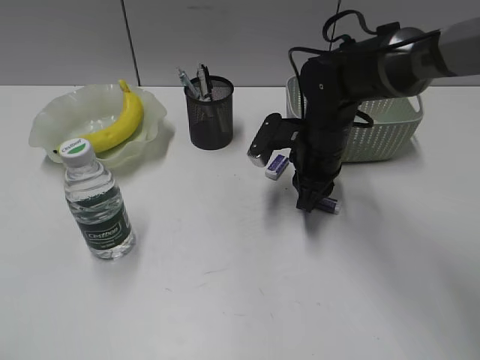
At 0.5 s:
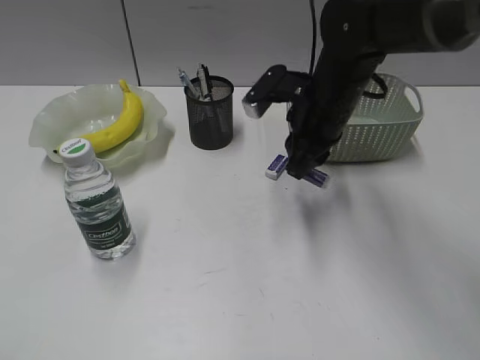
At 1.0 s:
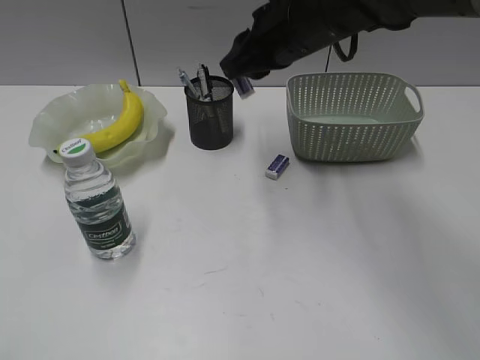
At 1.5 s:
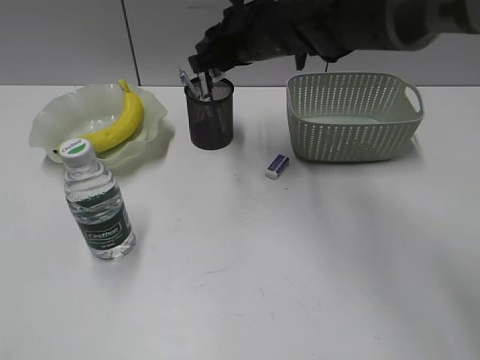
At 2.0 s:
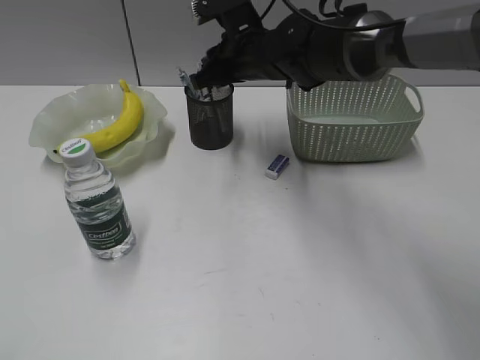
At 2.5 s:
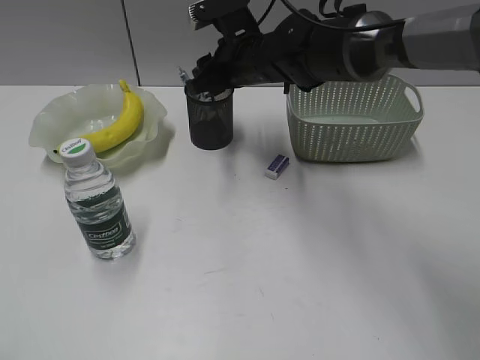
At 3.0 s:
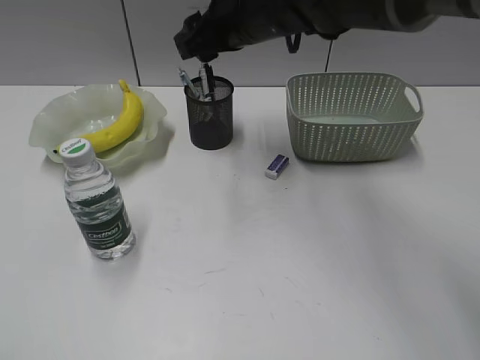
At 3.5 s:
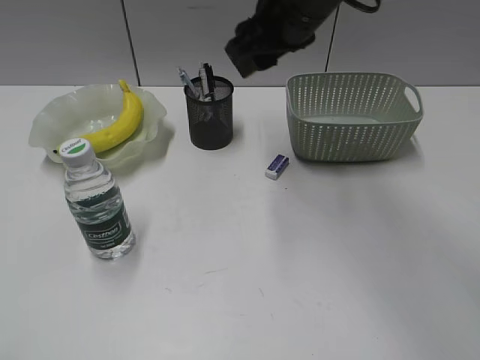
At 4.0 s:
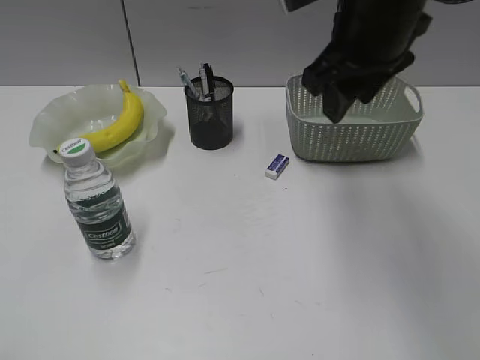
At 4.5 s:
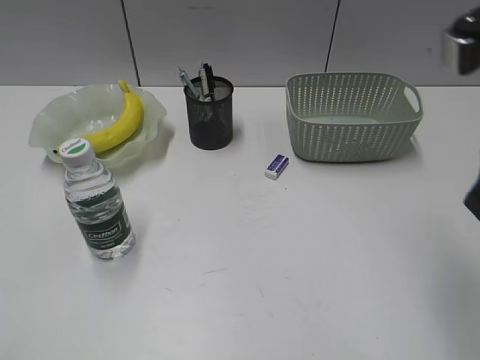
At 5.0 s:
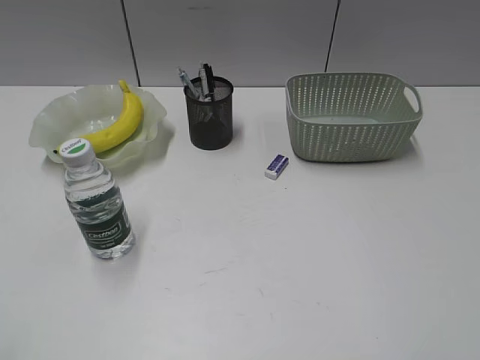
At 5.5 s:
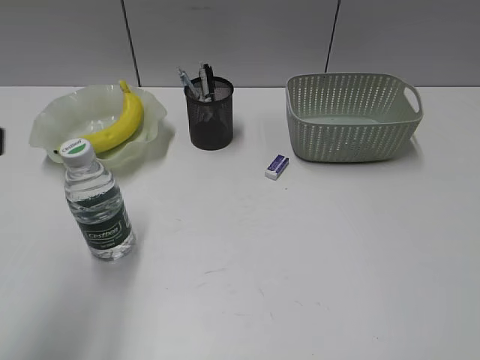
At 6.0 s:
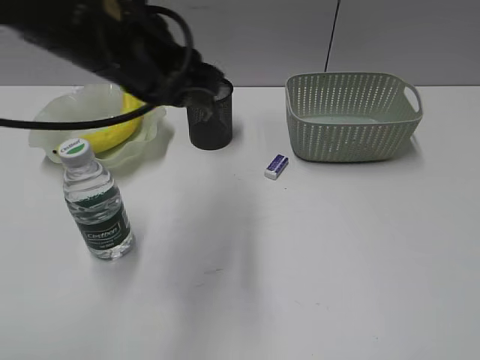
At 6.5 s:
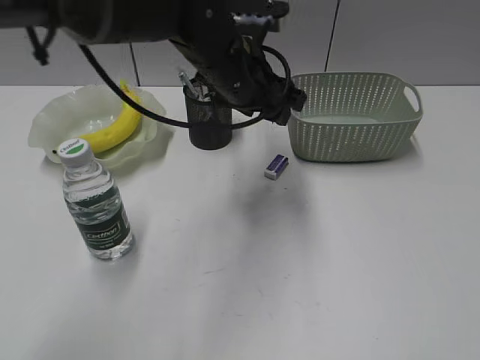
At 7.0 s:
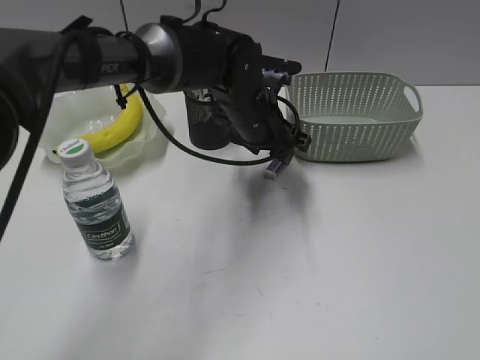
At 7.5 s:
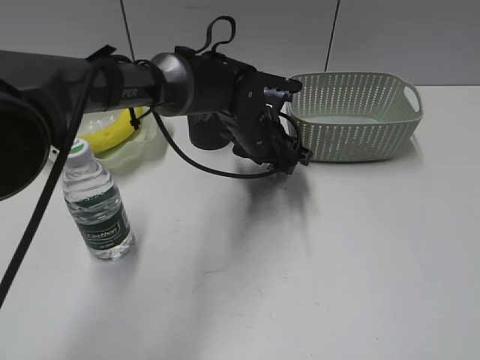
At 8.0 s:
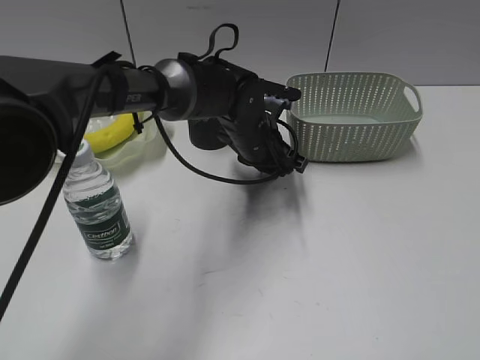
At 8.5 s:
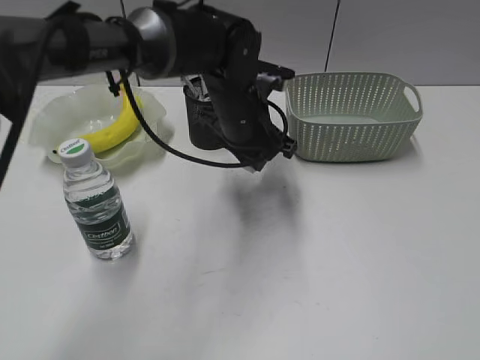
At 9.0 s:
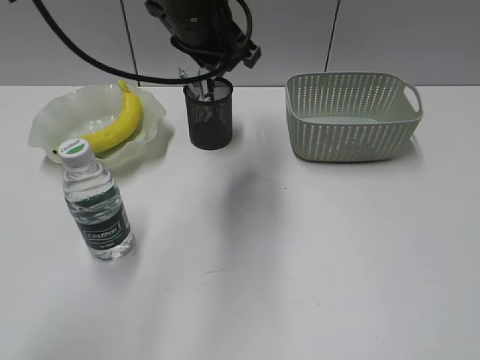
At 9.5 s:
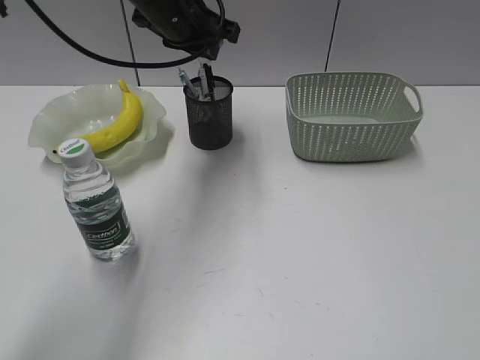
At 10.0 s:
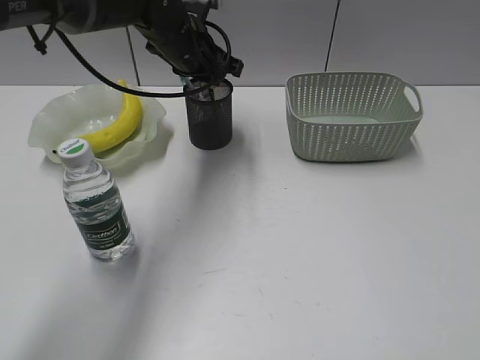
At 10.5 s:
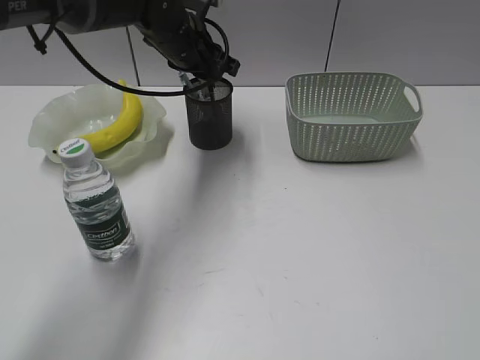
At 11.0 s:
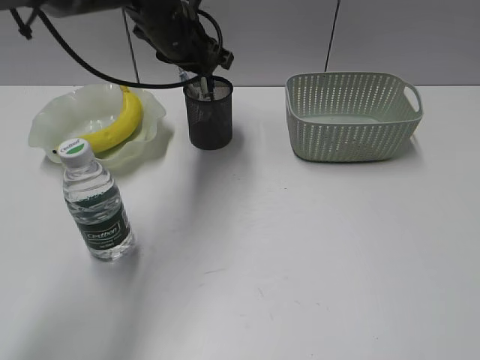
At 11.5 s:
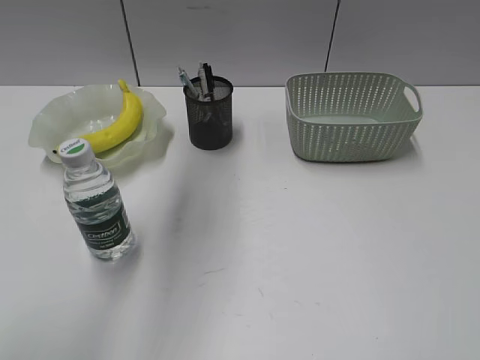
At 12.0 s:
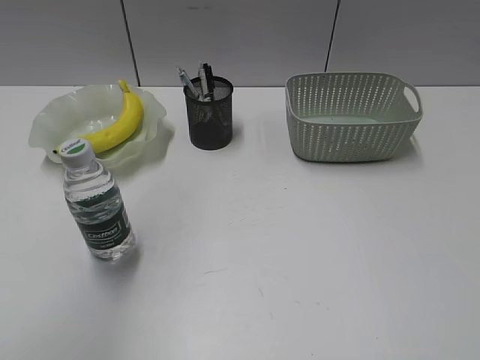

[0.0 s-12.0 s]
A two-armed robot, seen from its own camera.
Step, 0.5 to 2.5 s: Place the eraser in pen holder with right gripper.
Step, 3.0 to 8.0 s: Grasp the eraser with left gripper.
Step, 8.5 to 10.5 s: Place the eraser in pen holder with left gripper.
0.0 to 2.0 s: The right gripper goes approximately 15 cm to the left, upward and forward.
2.0 to 4.0 s: The right gripper shifts about 20 cm backward, upward and to the right, and opens.
4.0 to 6.0 s: The right gripper is displaced backward and to the right by about 40 cm, while the left gripper is displaced forward and to the right by approximately 35 cm.
6.0 to 8.0 s: The left gripper shifts some 25 cm downward, to the right and forward, and opens and closes again.
8.0 to 10.0 s: The left gripper goes some 15 cm upward, to the left and forward.
10.0 to 12.0 s: The left gripper shifts approximately 40 cm upward, backward and to the left.

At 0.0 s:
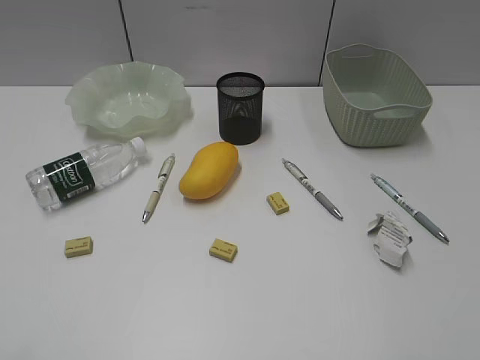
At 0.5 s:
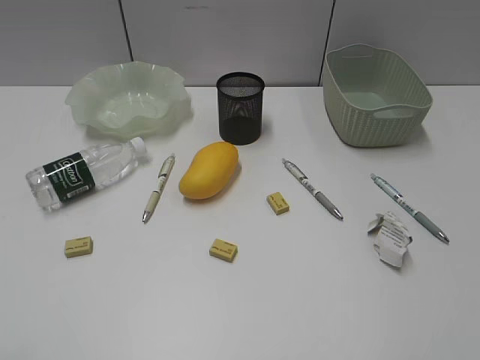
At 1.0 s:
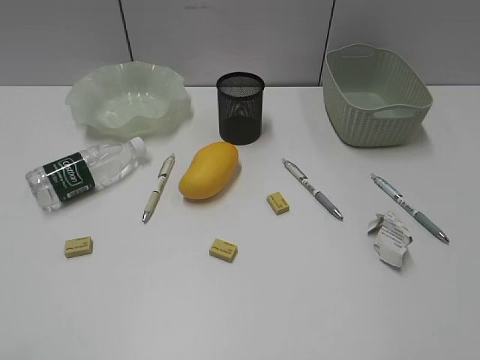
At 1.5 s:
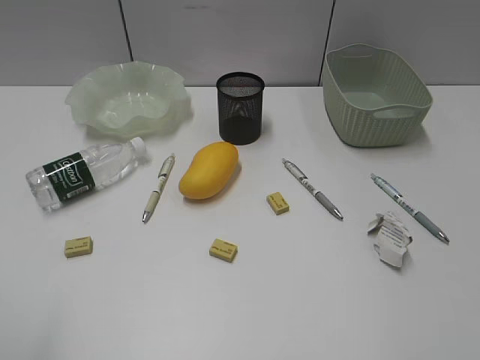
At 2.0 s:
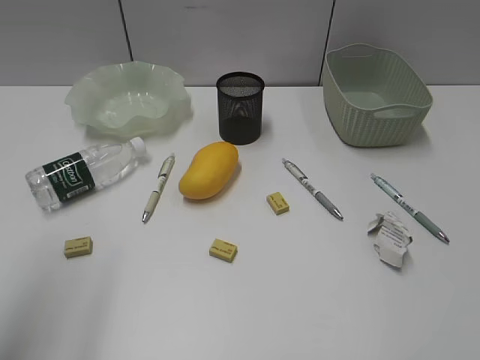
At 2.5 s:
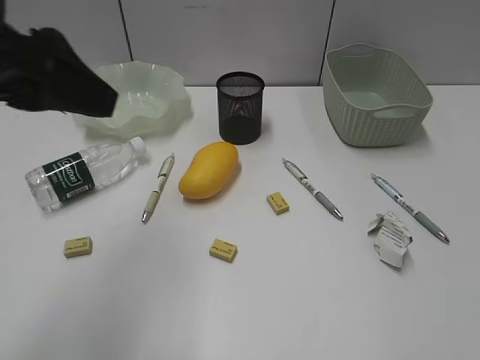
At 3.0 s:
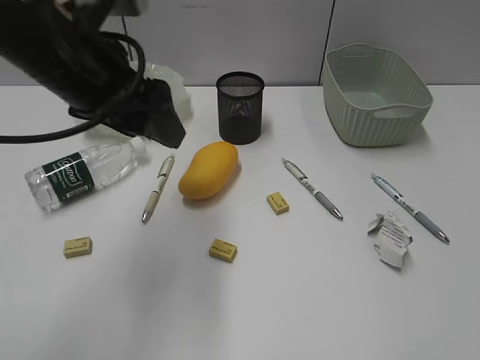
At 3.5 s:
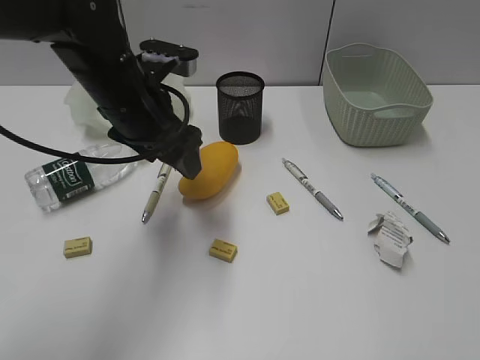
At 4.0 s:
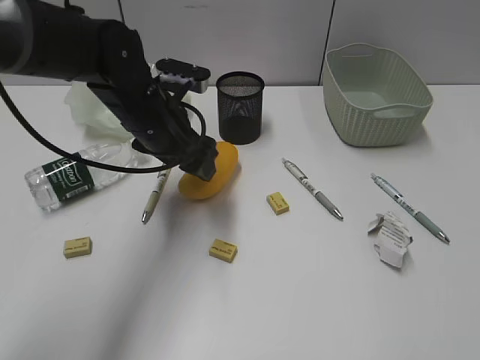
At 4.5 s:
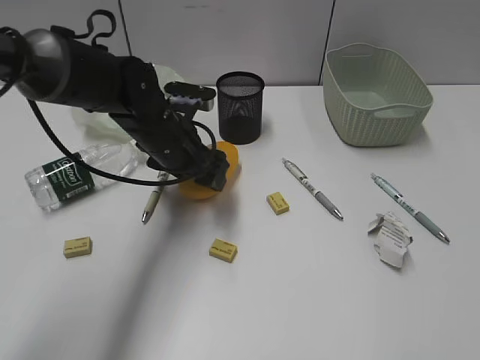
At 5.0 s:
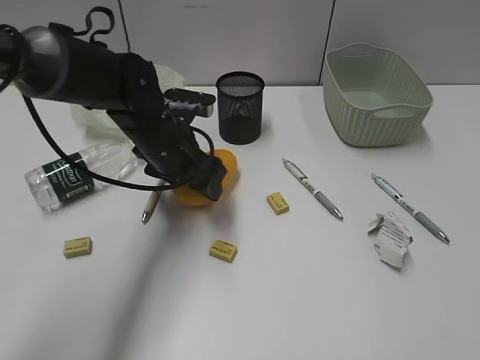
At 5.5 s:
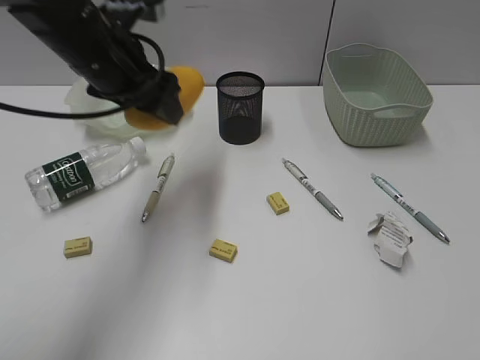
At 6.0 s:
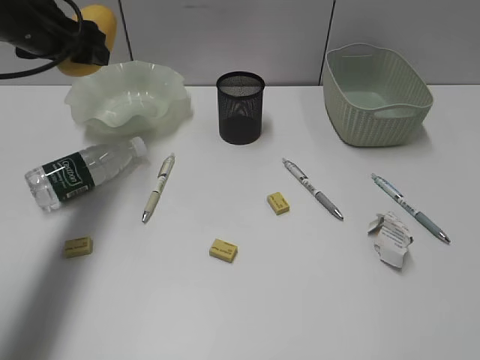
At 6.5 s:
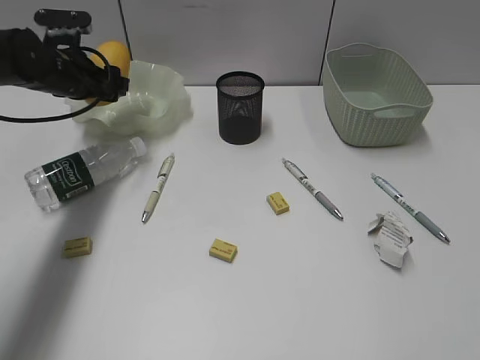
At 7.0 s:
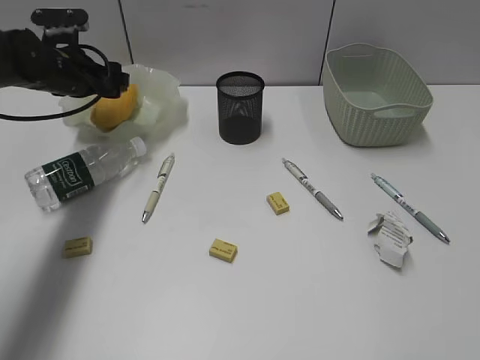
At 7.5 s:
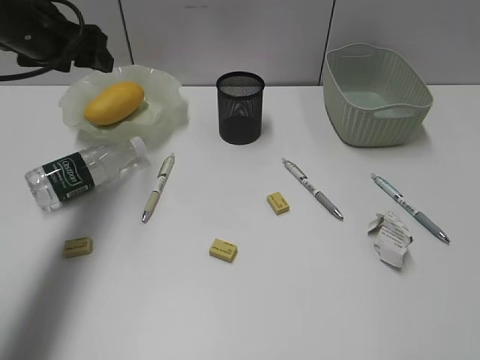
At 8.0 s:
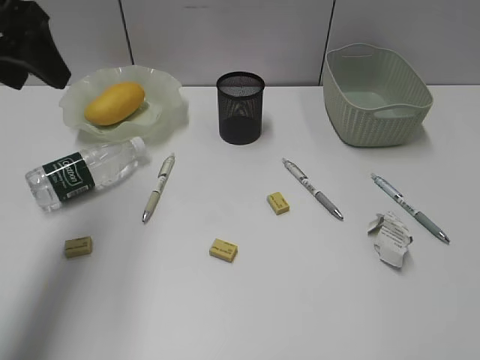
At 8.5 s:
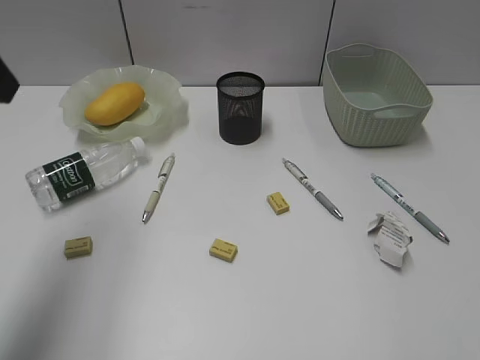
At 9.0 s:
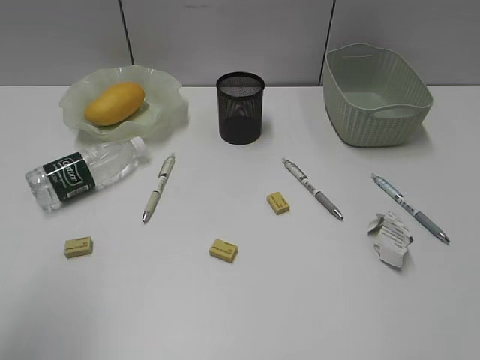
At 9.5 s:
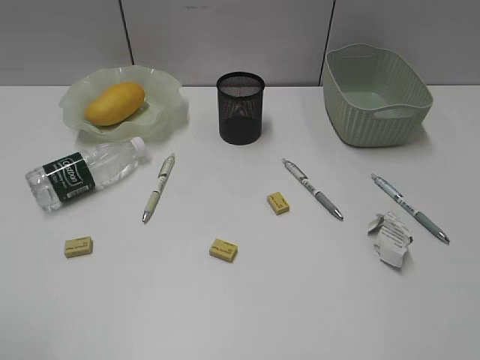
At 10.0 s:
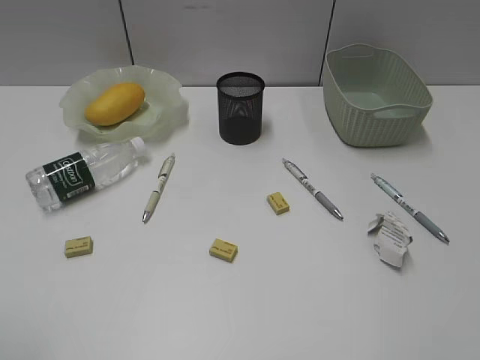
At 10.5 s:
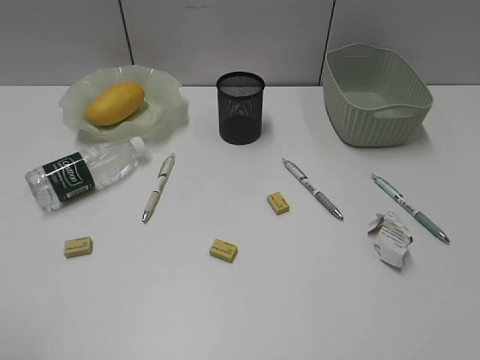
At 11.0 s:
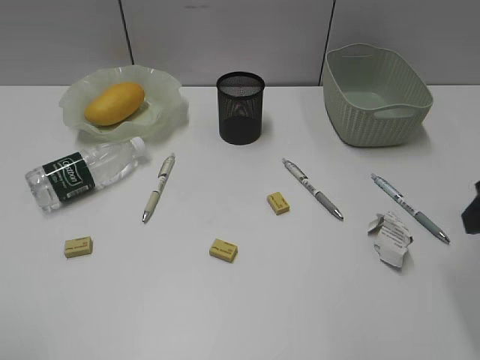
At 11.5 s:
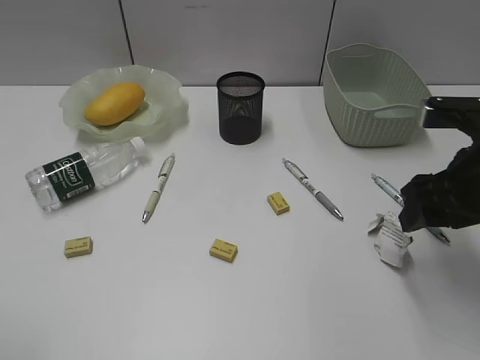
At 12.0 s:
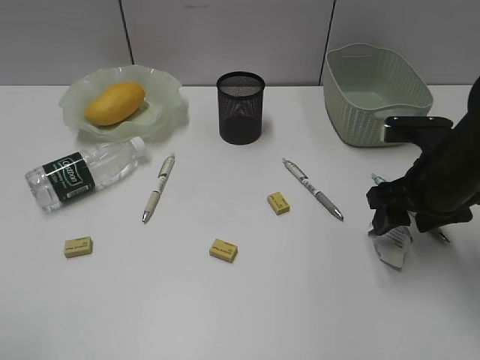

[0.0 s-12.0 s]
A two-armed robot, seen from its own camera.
Step, 2.5 to 4.5 s: Grasp the mango with left gripper.
Step, 5.0 to 7.0 s: Place the mango in the plate with left gripper.
2.0 to 4.0 s: The left gripper is displaced forward, to the right and downward by roughly 35 cm.
4.0 to 6.0 s: The left gripper shifts some 15 cm to the left and upward.
6.0 to 8.0 s: The left gripper travels backward and upward by roughly 10 cm.
8.0 to 10.0 s: The left gripper moves backward, about 30 cm.
10.0 to 12.0 s: The right gripper shifts roughly 35 cm forward and downward.

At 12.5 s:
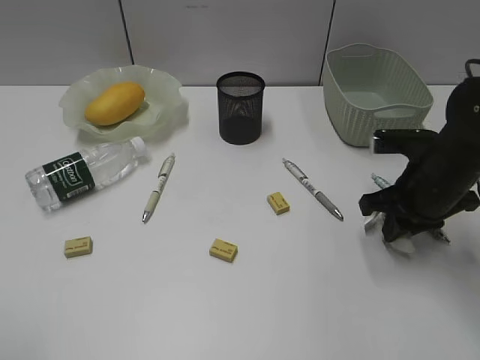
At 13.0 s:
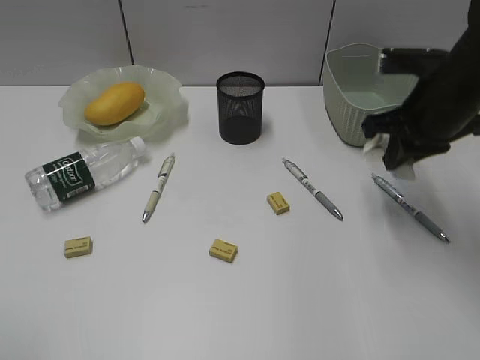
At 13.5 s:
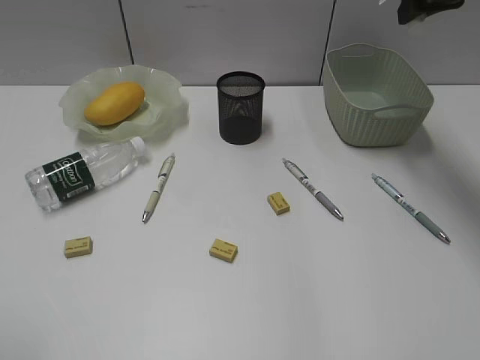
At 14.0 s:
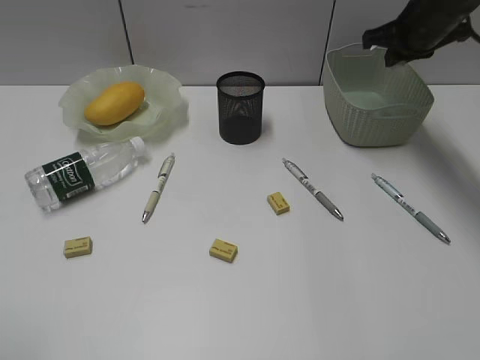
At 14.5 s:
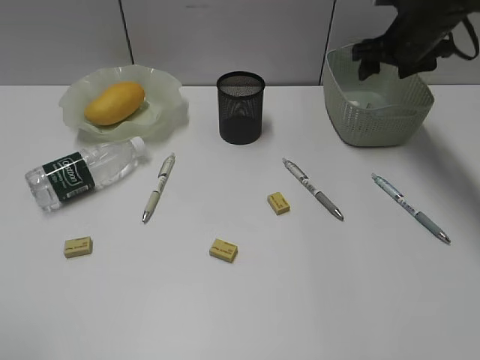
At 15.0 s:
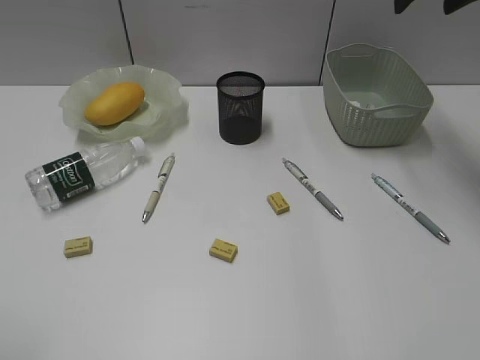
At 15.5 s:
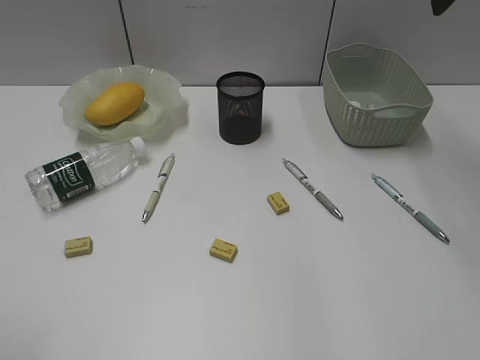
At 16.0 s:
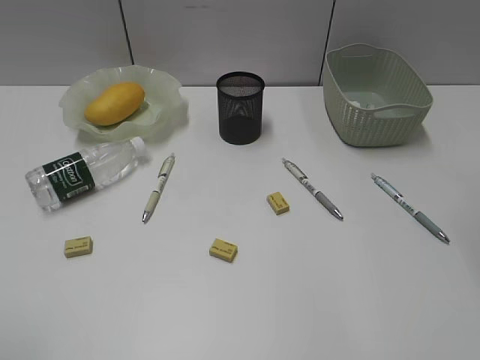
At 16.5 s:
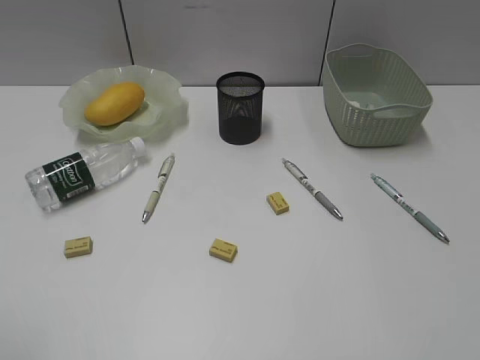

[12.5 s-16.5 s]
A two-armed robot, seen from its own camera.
Step, 13.0 to 14.5 s: Place the waste paper in the basket with right gripper.
12.5 to 14.5 s: The right gripper travels forward and upward by about 20 cm, and opens.
14.5 to 16.5 s: The right gripper moves backward, approximately 40 cm.
